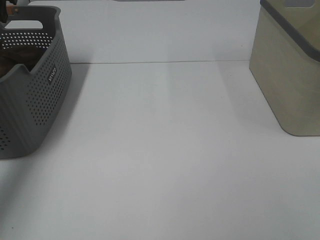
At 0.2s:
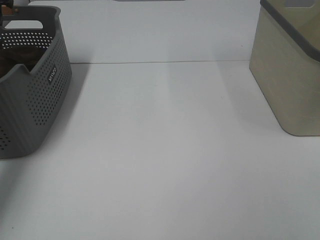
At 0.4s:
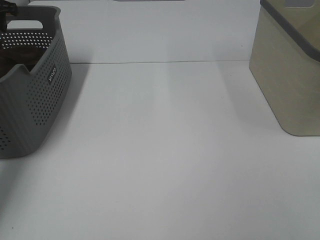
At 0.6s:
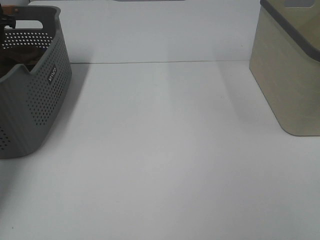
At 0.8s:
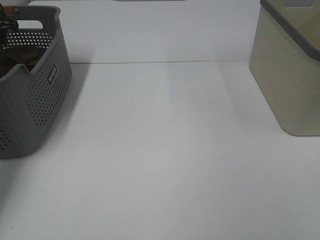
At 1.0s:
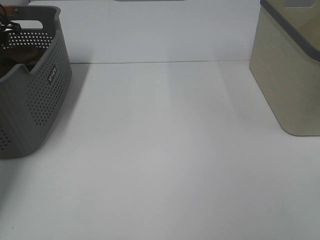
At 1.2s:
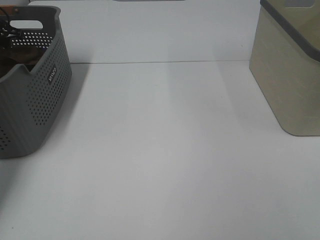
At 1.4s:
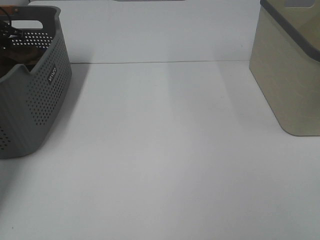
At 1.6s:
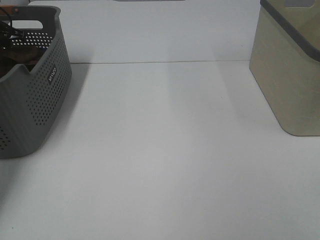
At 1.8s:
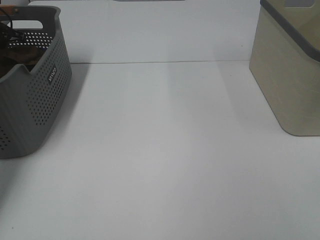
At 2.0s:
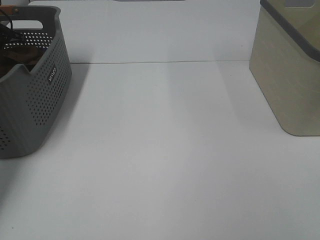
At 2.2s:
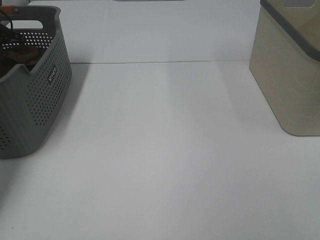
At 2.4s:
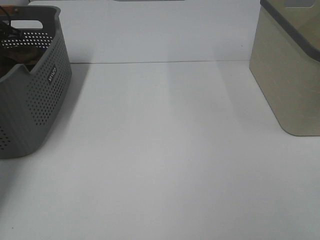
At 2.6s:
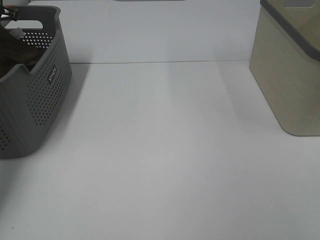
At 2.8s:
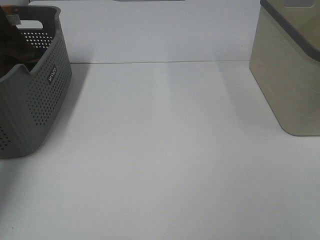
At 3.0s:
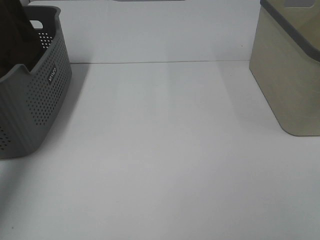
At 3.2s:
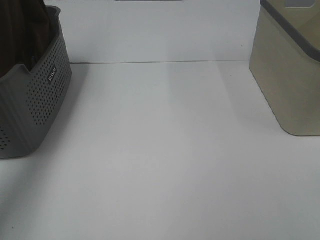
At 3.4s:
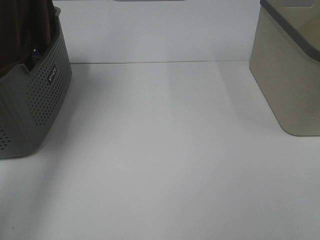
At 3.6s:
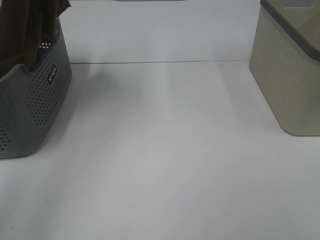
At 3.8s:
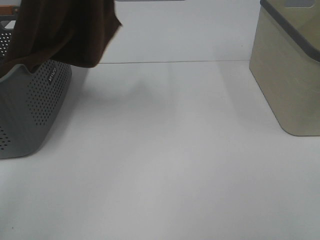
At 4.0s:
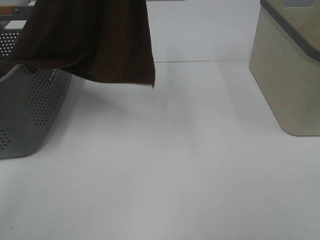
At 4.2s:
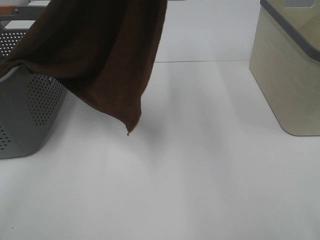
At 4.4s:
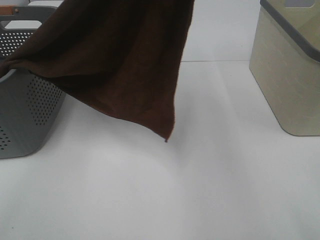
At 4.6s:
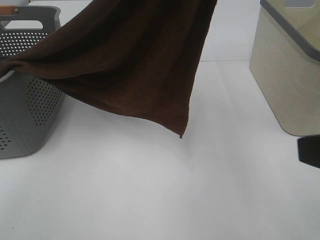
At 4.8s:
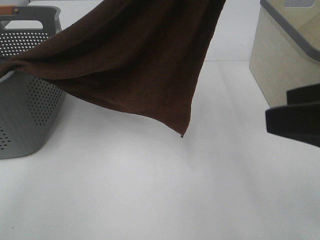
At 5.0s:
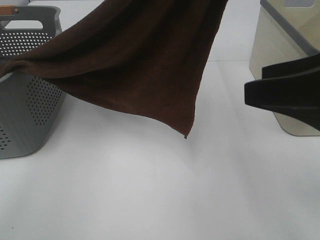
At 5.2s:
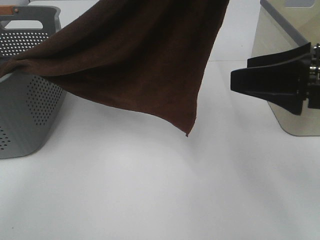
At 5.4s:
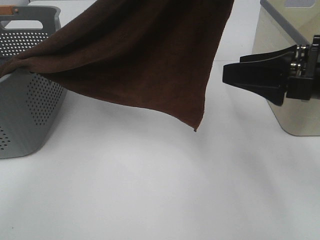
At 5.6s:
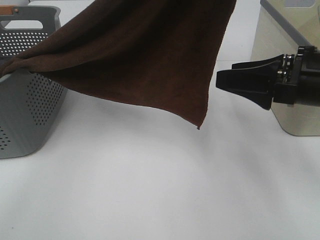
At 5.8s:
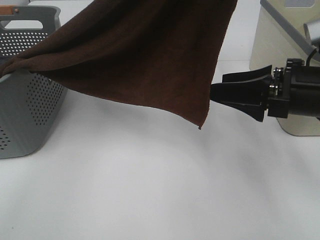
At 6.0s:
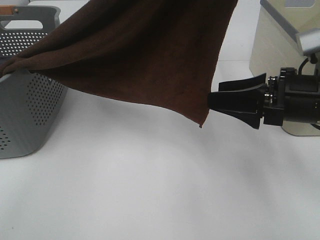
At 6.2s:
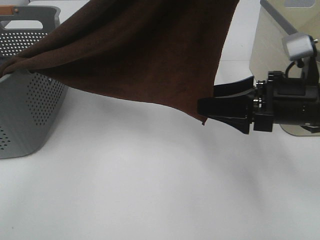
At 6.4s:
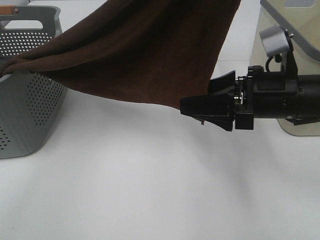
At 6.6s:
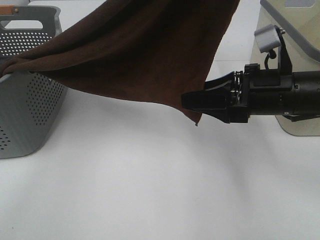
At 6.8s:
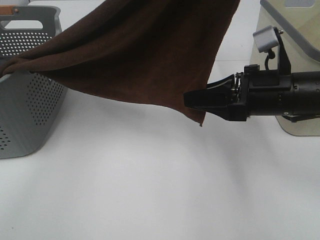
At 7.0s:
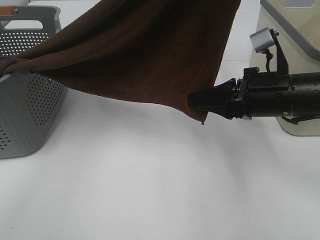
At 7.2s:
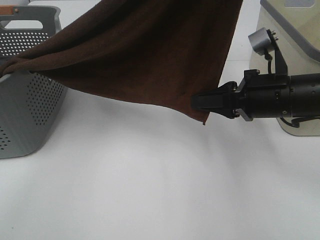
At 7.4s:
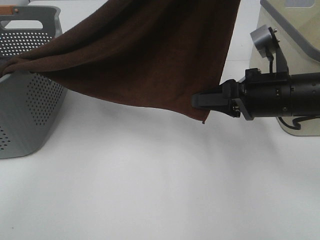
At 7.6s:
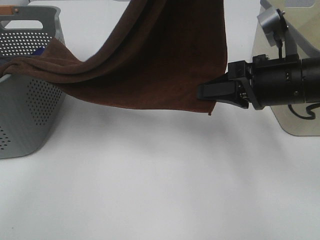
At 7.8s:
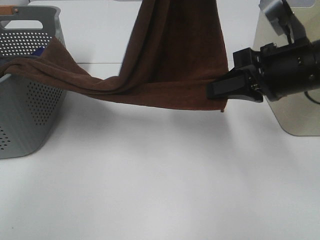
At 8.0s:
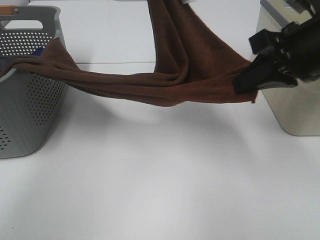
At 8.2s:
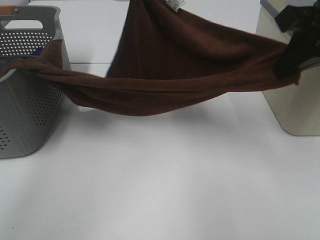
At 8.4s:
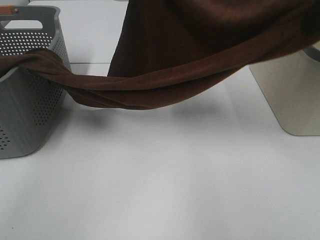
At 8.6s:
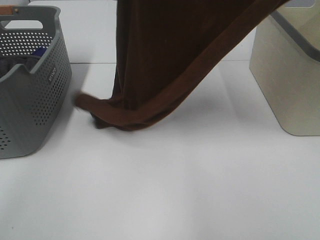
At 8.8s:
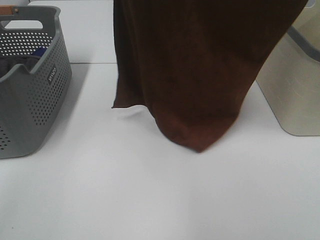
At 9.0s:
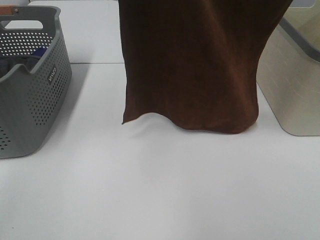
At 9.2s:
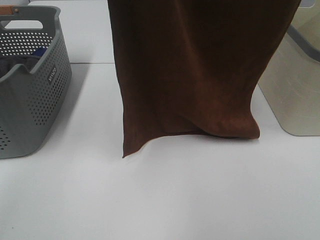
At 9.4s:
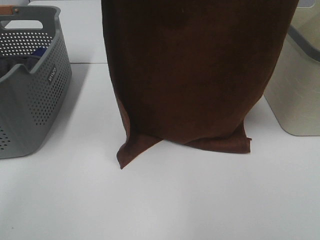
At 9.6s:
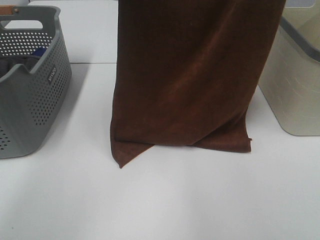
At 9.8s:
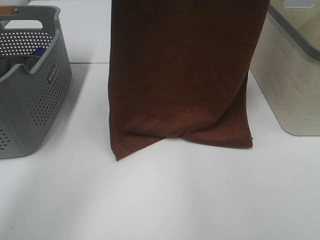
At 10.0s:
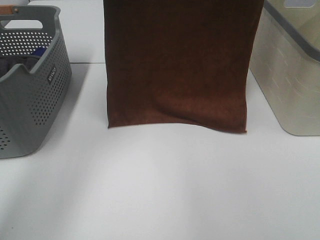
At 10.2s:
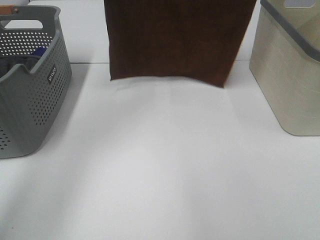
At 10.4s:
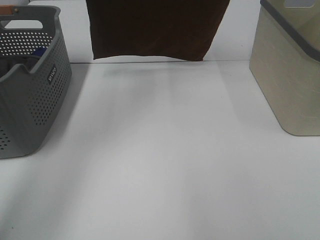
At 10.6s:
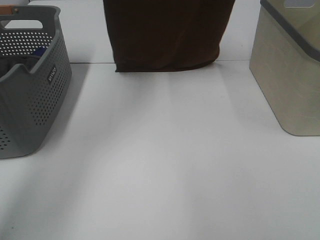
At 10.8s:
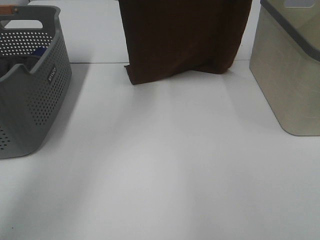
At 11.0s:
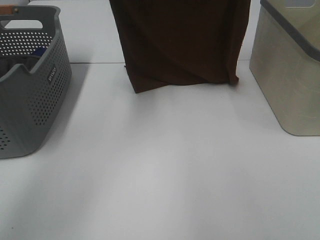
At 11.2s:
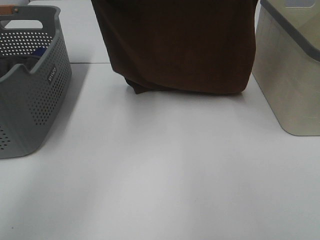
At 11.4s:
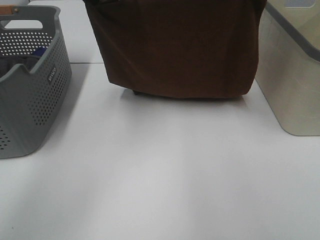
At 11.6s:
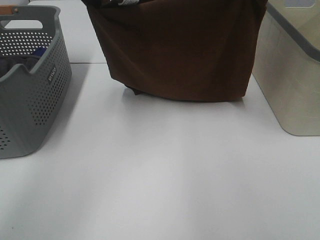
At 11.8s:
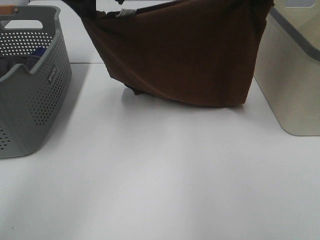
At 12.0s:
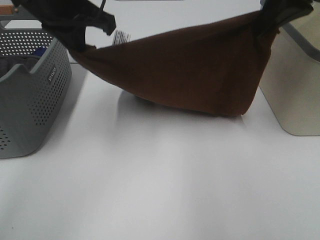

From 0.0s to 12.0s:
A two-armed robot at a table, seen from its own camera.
Task of the whole recording: Remove the towel and place it.
Step, from 3.2s to 6.0s: Right hand: grab a corner of the brown towel and straighten it.
Step, from 6.2s to 9.8s: Left hand: spread the brown towel flat on the table.
Step, from 6.2s to 9.8s: Right hand: spread the brown towel flat on the table.
From 0.0s to 1.6s: The left gripper heads downward and forward, covering approximately 15 cm.
From 1.6s to 3.0s: The left gripper shifts approximately 20 cm upward, and closes its fingers.
From 3.0s to 4.4s: The right gripper travels forward by about 5 cm. Meanwhile the left gripper is displaced to the right and backward by roughly 40 cm.
From 4.4s to 6.0s: The right gripper goes roughly 20 cm forward and downward.
From 6.0s to 7.6s: The right gripper closes. Meanwhile the left gripper shifts by roughly 5 cm.
From 7.6s to 9.0s: The left gripper moves to the left and upward, about 15 cm; the right gripper is displaced upward by some 35 cm.
From 9.0s to 10.4s: The two grippers go some 15 cm forward.
From 10.4s to 12.0s: The right gripper moves downward, roughly 15 cm, while the left gripper moves downward and backward, about 20 cm.

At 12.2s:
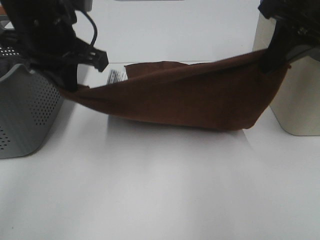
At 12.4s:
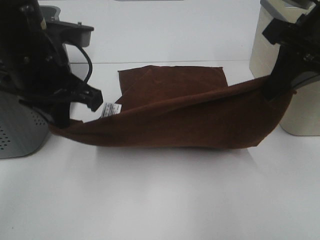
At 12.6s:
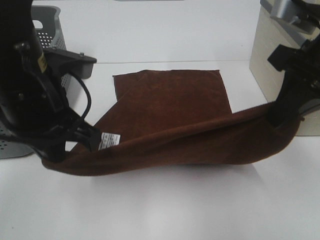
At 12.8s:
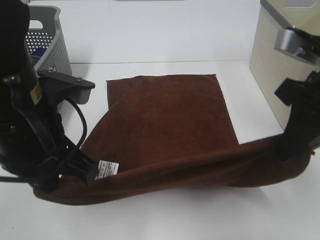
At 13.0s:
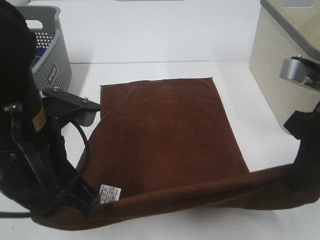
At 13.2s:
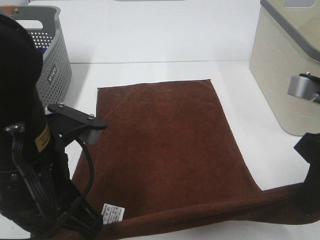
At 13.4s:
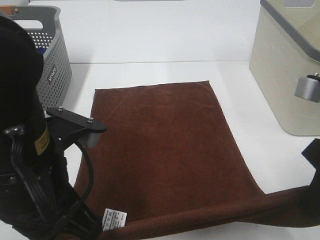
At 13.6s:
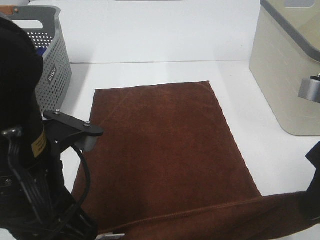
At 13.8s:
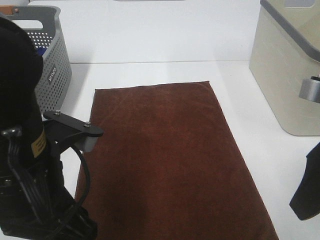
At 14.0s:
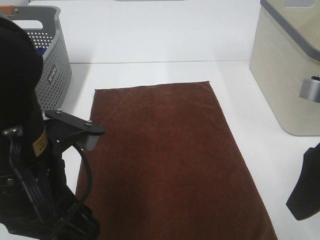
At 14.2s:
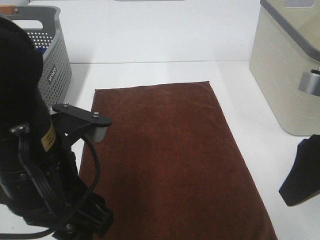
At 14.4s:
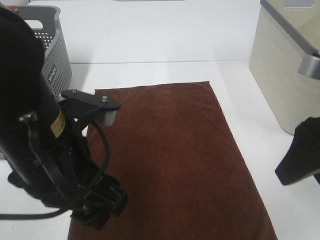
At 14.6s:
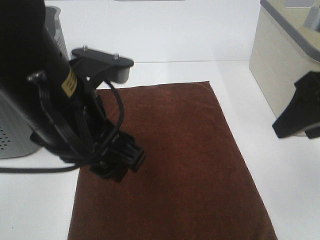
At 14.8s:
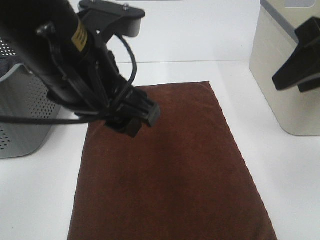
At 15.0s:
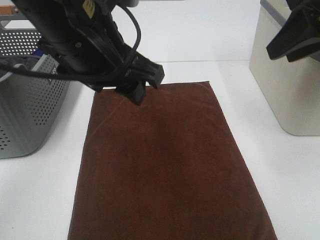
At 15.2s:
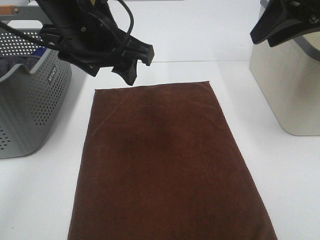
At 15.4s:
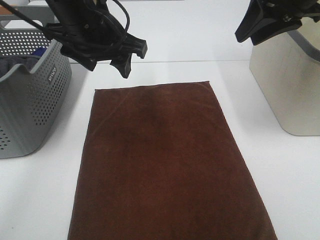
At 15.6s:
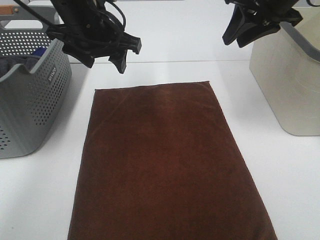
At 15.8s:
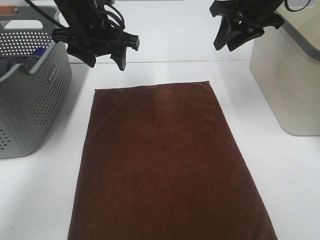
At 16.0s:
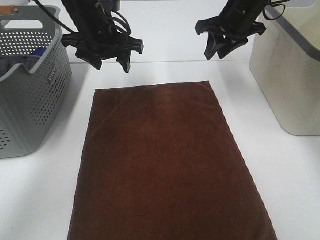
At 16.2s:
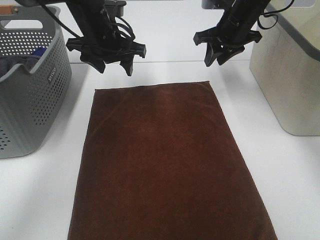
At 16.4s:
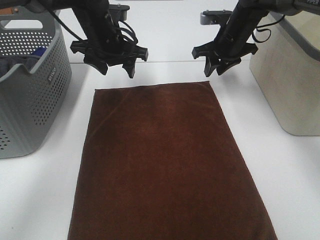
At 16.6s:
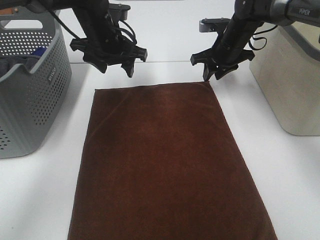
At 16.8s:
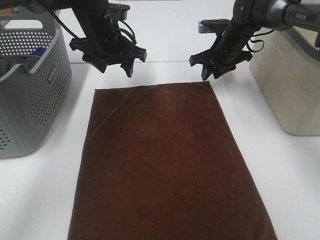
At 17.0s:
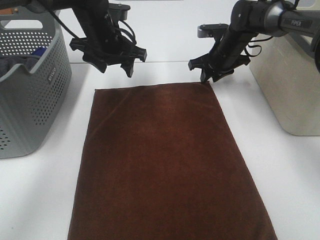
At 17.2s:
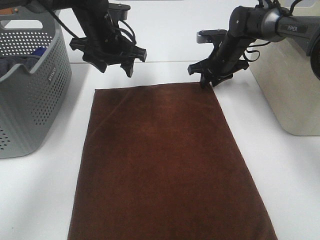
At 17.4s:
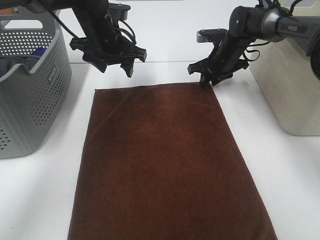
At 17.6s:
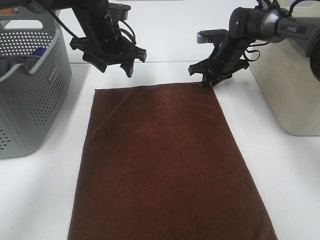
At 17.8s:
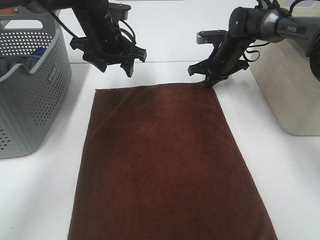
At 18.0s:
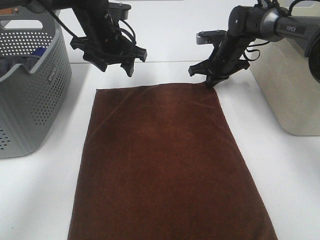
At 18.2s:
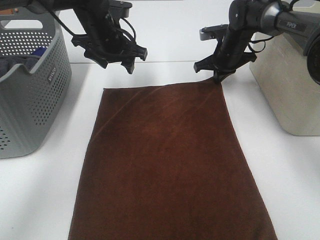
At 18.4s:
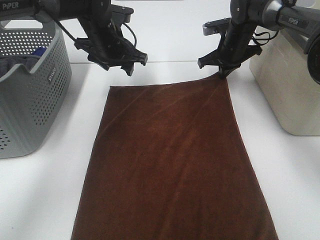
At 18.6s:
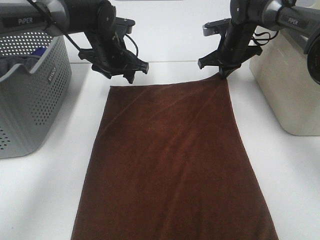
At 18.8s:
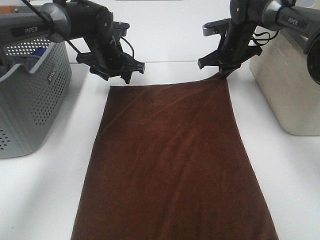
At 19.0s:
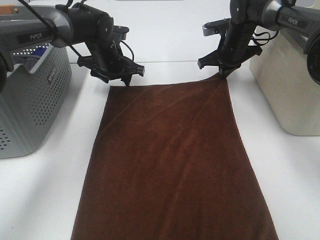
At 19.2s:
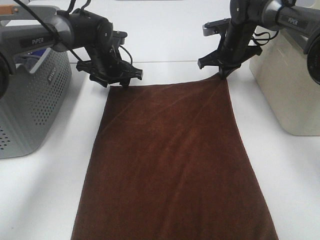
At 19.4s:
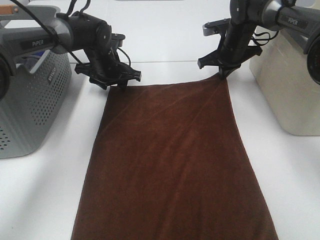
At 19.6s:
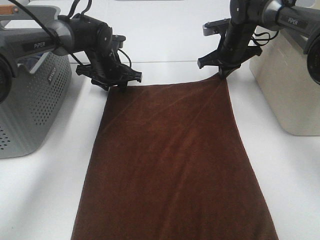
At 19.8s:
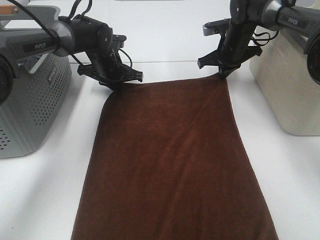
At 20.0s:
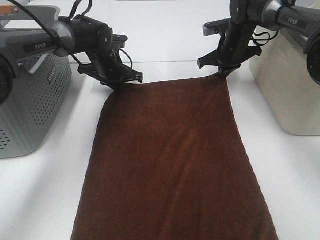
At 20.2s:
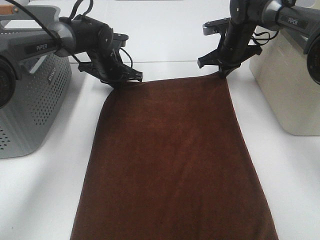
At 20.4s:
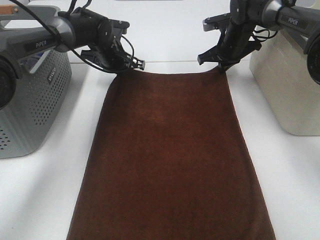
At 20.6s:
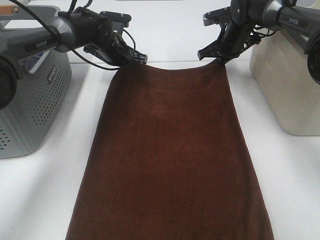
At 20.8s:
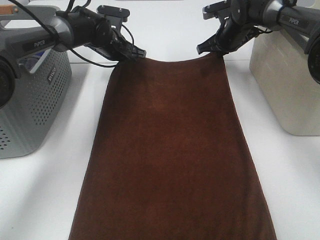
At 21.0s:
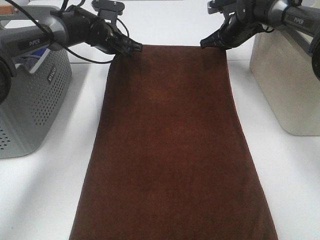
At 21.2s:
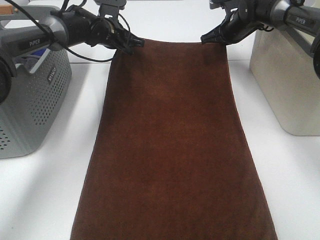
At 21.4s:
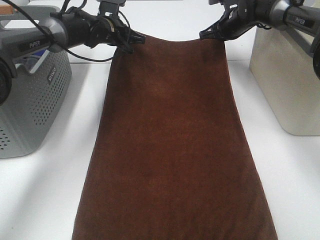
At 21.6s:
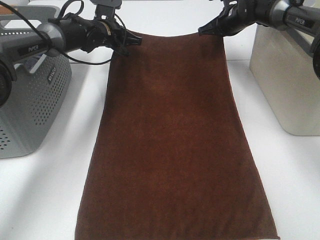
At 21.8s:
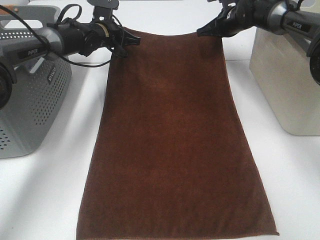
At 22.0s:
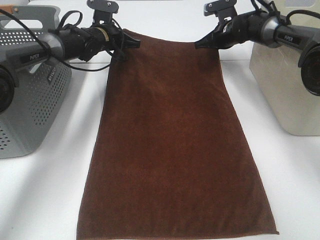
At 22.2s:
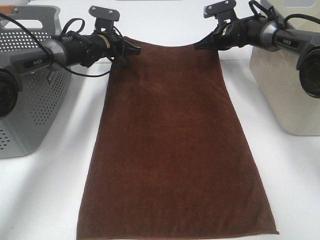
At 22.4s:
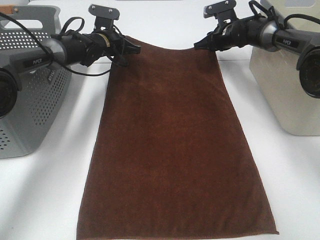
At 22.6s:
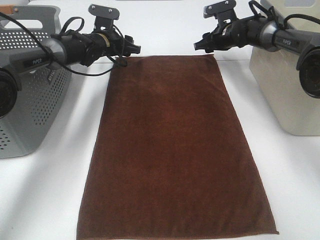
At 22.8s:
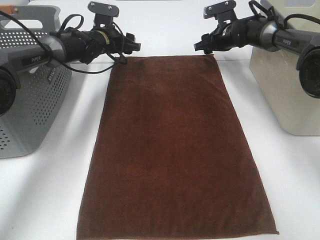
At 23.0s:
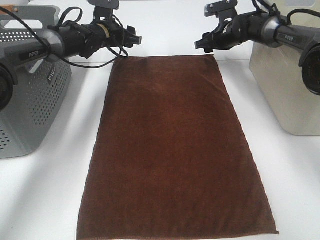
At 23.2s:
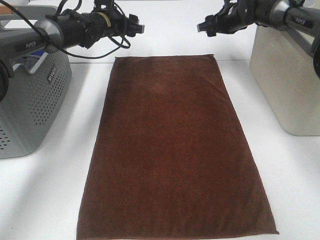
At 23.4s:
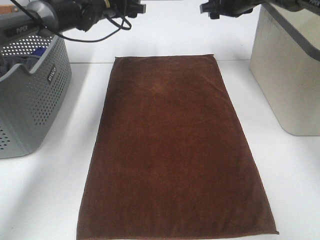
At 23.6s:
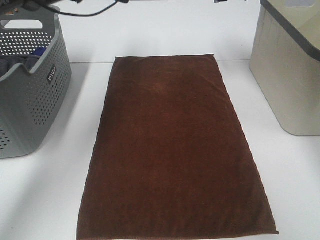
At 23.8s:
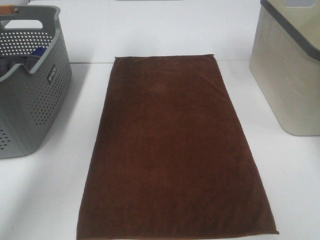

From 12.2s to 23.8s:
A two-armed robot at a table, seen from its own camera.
Task of the whole recording: Remove the towel and place it.
Step, from 12.2s to 17.0s: Left hand:adjust the brown towel.
Step, from 12.2s to 17.0s: Right hand:adjust the brown towel.
From 12.2s to 13.6s: Both grippers travel together backward and downward, some 15 cm. The left gripper opens up, while the right gripper opens up.
From 13.6s to 15.0s: The right gripper is displaced upward and forward by roughly 15 cm, and opens and closes again. The left gripper goes approximately 15 cm forward and upward.
From 15.0s to 16.6s: The grippers both shift forward and downward by roughly 30 cm.
From 16.6s to 18.0s: The right gripper closes its fingers.
From 18.0s to 19.4s: The left gripper is displaced downward by some 10 cm.
From 19.4s to 21.0s: The left gripper ends up some 5 cm from where it was, and closes.
From 21.0s to 22.4s: The right gripper opens up; the left gripper opens up.
From 22.4s to 23.8s: Both grippers travel together upward, about 20 cm. The left gripper opens up. The right gripper opens up.
